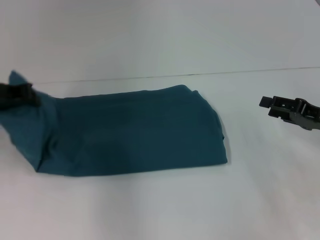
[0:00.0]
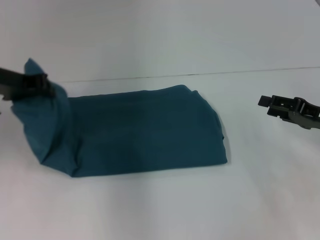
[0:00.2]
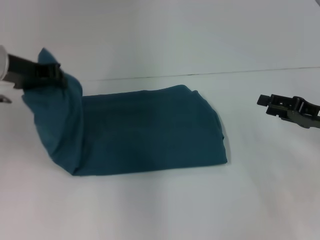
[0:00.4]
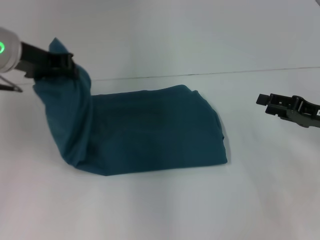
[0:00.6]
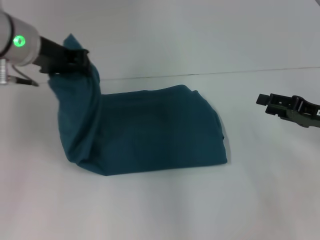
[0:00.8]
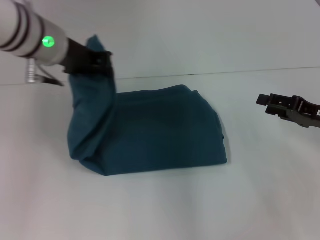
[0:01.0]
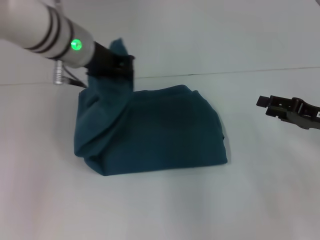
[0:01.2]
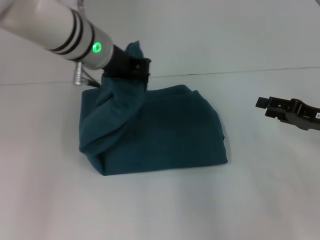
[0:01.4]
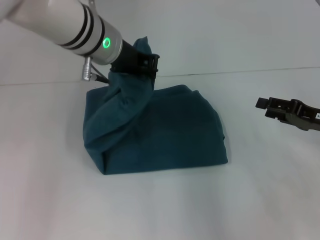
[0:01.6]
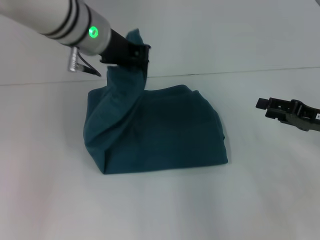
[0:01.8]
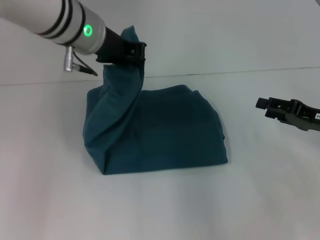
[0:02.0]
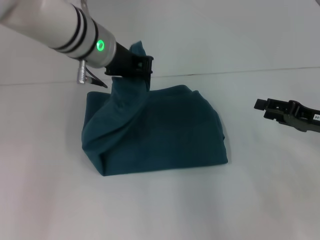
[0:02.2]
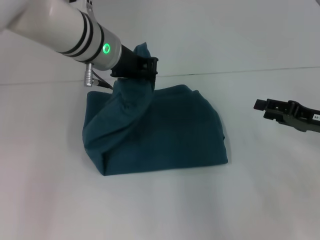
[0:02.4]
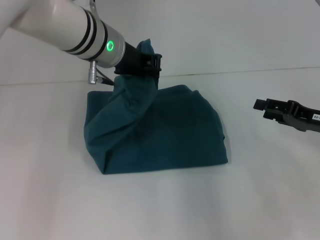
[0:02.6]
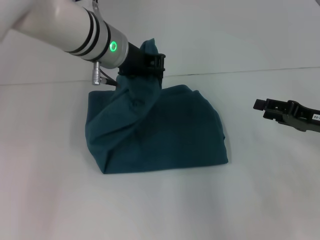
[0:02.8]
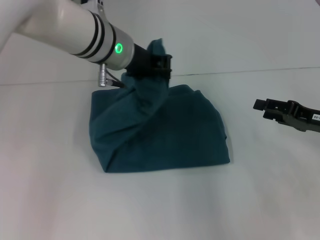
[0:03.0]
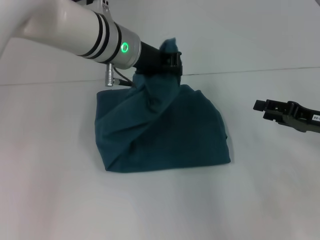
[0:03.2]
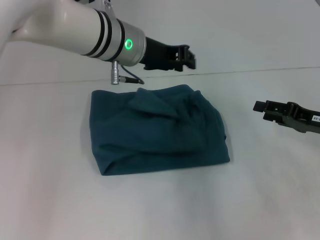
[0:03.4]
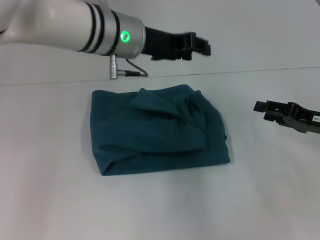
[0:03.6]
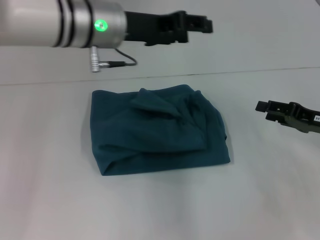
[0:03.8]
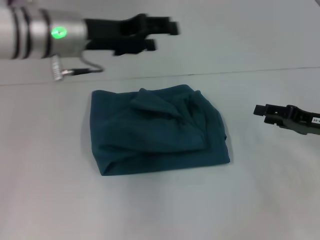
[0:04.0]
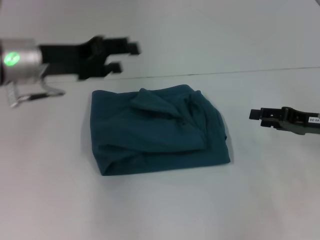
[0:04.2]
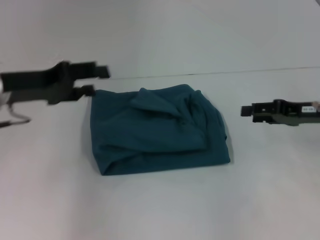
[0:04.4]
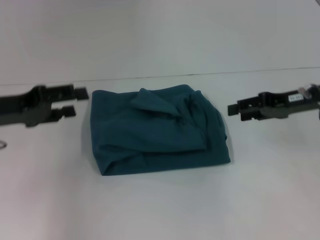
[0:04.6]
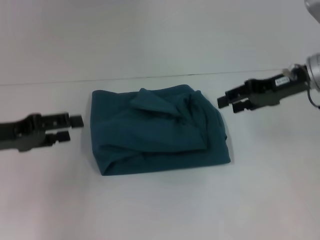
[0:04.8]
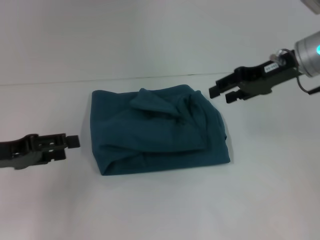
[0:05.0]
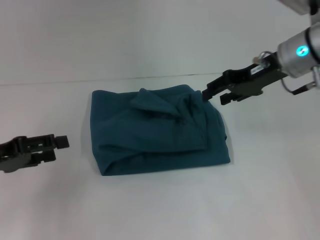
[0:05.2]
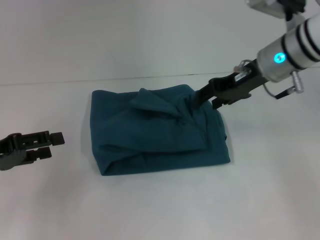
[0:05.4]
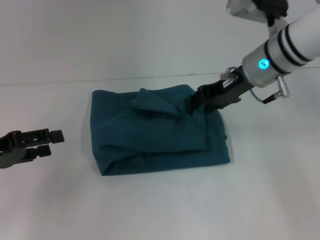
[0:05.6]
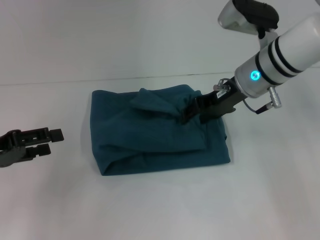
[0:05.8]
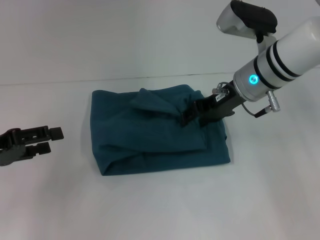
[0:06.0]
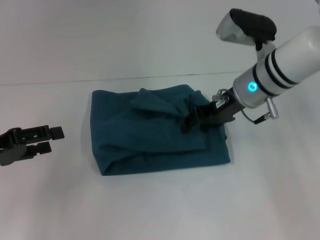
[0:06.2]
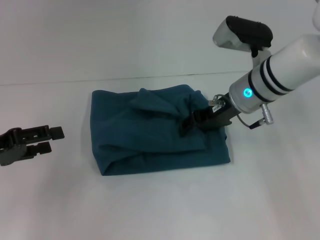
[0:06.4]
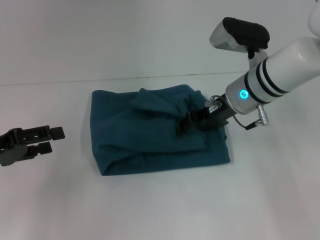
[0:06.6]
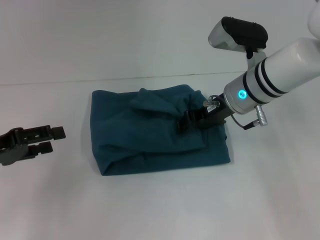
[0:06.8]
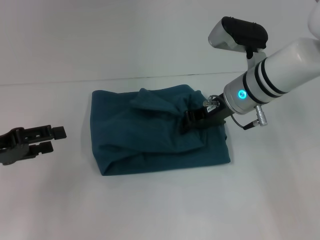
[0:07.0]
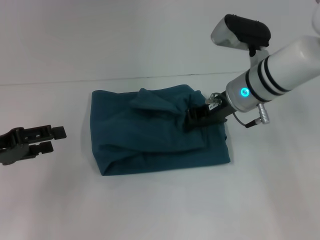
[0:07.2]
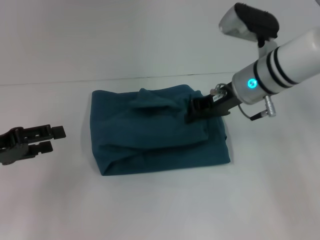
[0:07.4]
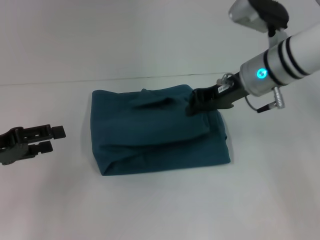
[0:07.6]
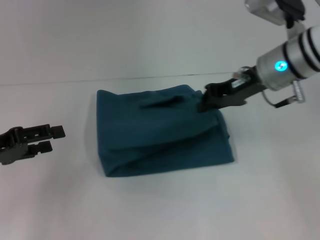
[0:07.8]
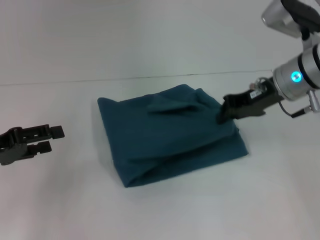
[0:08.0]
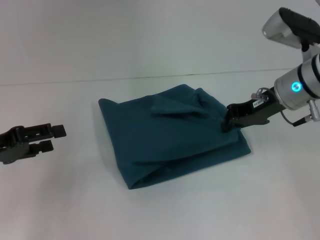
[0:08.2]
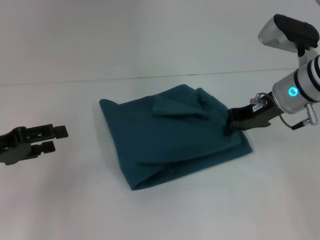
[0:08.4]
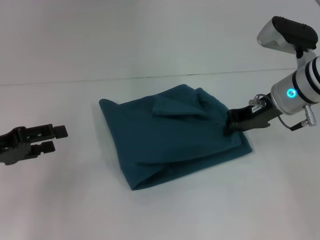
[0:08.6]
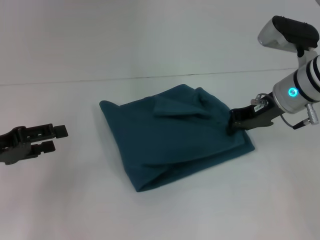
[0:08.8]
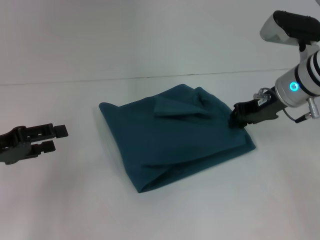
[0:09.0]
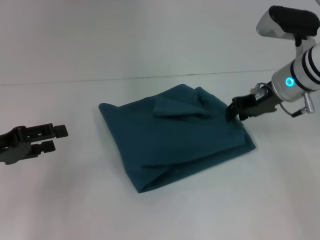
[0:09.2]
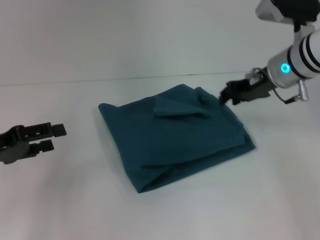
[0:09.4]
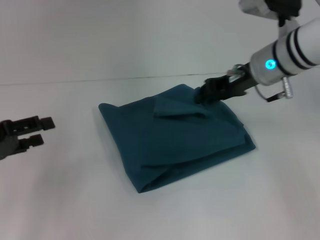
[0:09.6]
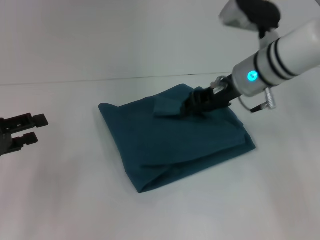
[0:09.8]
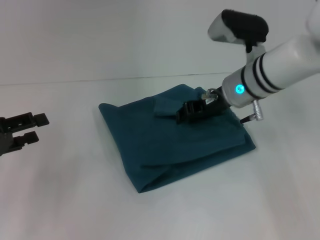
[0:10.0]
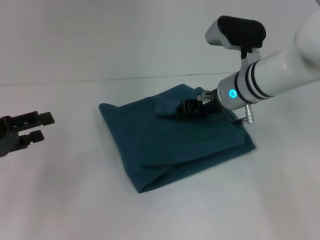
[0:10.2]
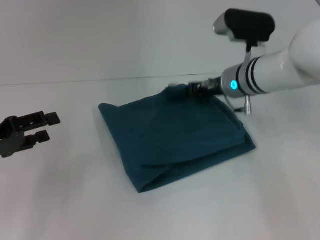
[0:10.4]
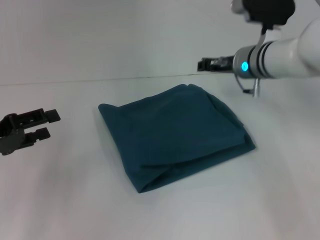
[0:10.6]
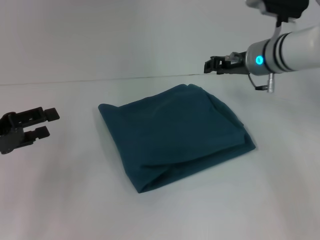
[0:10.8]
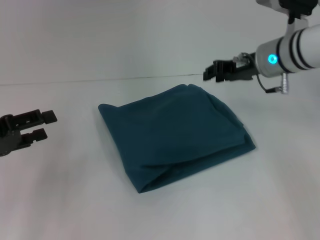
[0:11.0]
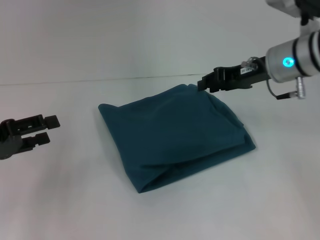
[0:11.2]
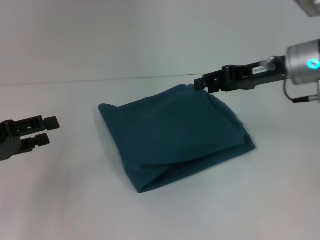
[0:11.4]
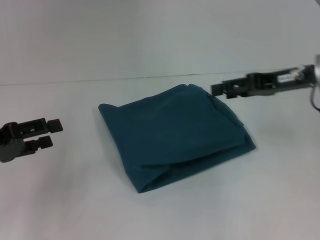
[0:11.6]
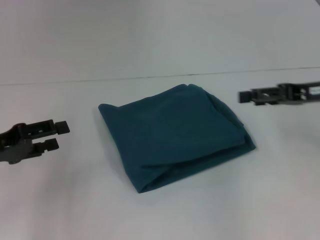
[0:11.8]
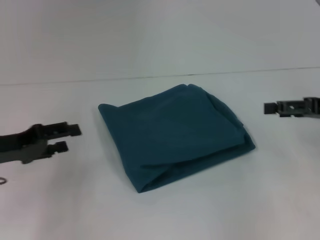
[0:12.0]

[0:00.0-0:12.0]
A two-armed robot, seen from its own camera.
Step, 0.0 to 3.8 s: Fold the clothes to the left.
0.0 to 1.6 s: The left gripper travels to the right by approximately 20 cm.
1.6 to 3.0 s: The grippers stay close to where they were, moving slightly.
3.0 to 4.4 s: The left gripper heads to the left, covering approximately 20 cm, and opens.
4.4 to 6.0 s: The left gripper shifts roughly 10 cm to the left, backward and downward. The right gripper shifts about 15 cm to the left and forward.
6.0 to 7.6 s: The right gripper closes.
7.6 to 9.0 s: The right gripper is displaced to the right by approximately 5 cm.
9.0 to 10.4 s: The right gripper goes roughly 5 cm to the left.
10.4 to 12.0 s: The right gripper moves to the right and backward, approximately 20 cm, and opens up.

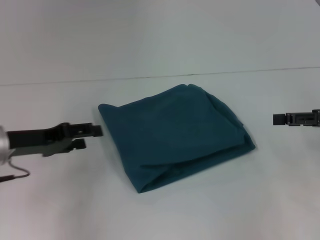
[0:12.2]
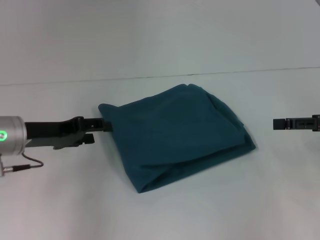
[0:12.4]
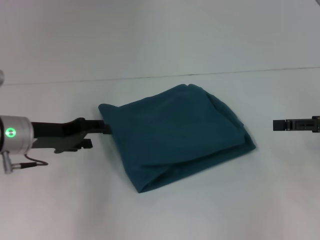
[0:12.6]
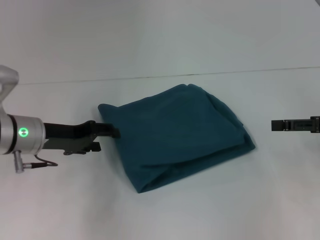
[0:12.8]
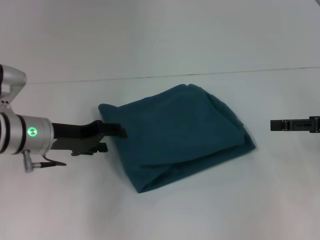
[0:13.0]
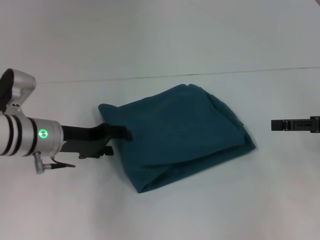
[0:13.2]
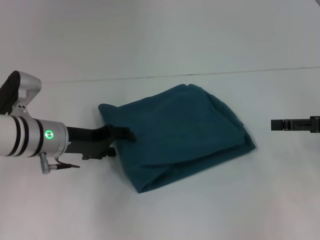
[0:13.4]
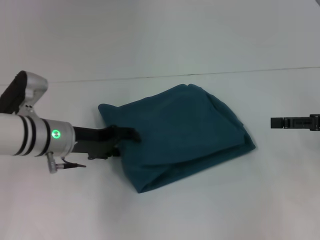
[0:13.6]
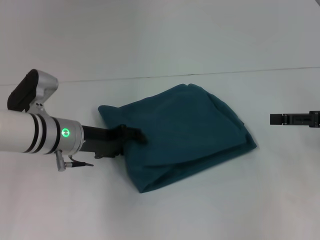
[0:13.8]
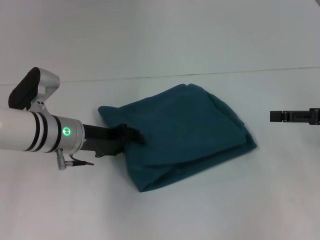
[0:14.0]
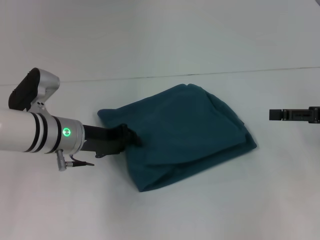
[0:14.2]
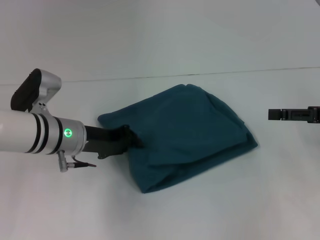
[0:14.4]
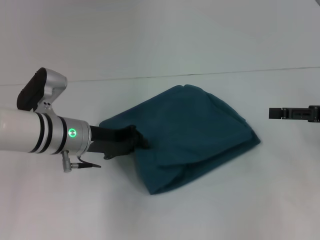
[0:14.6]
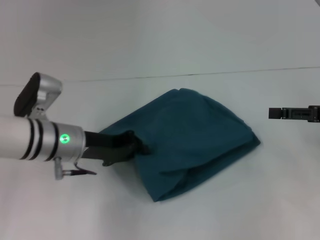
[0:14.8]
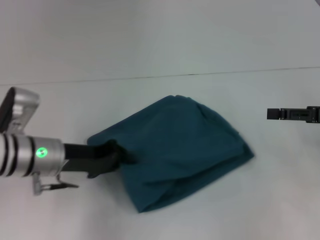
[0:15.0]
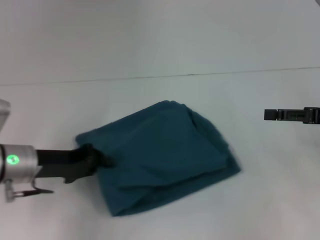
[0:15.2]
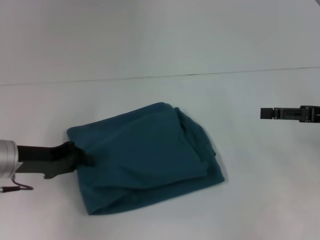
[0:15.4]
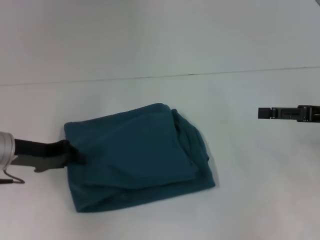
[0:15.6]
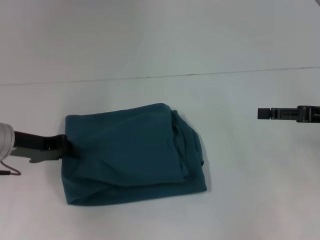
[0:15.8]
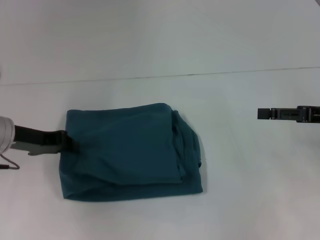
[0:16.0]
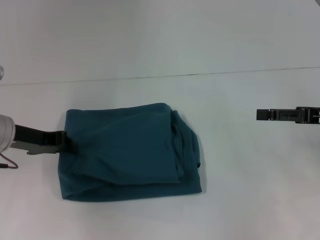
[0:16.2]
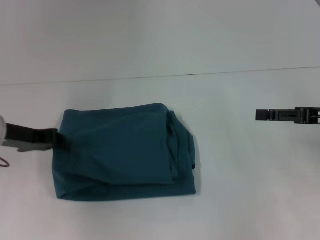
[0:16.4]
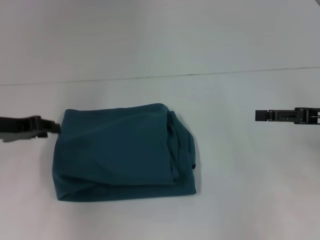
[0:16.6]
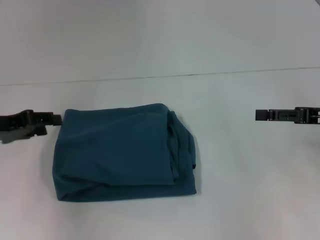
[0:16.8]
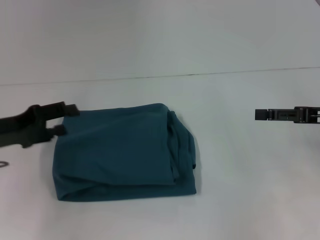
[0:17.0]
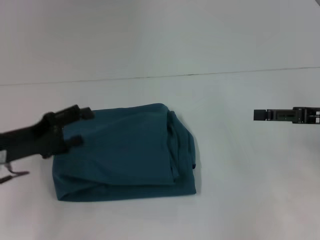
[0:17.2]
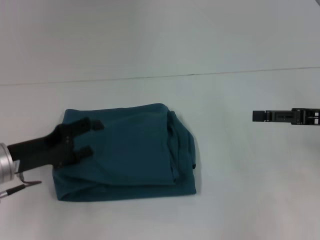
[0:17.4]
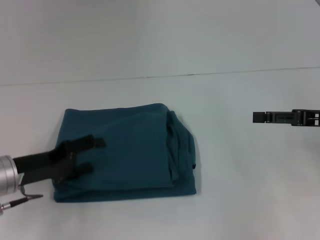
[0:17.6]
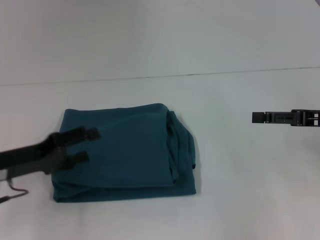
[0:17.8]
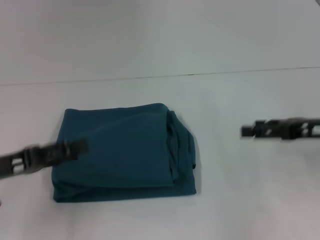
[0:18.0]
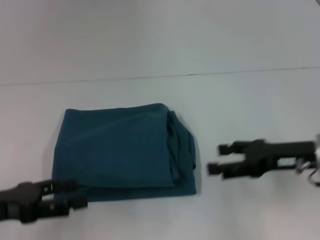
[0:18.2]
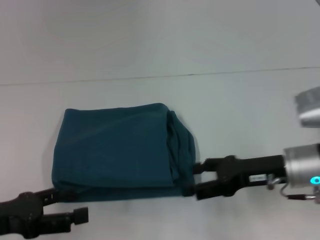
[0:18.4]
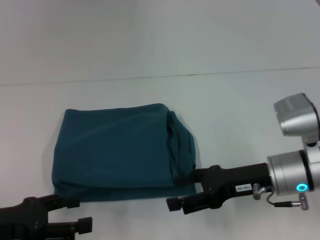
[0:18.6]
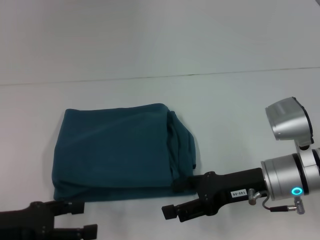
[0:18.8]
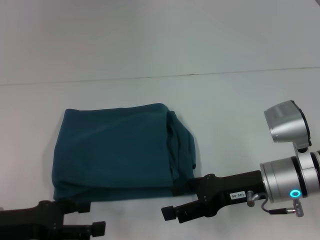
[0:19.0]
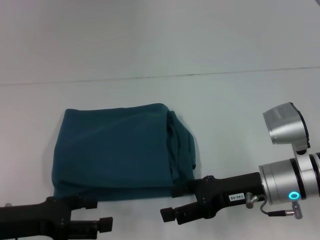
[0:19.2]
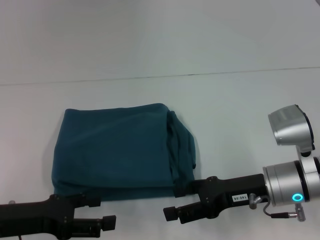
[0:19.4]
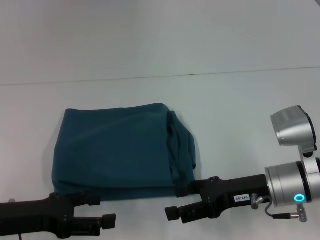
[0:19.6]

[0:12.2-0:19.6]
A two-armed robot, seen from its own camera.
12.2 to 13.6 s: The left gripper travels to the right by approximately 10 cm.
13.6 to 15.2 s: The left gripper ends up roughly 5 cm from where it was, and closes its fingers.
15.2 to 16.6 s: The left gripper moves to the left and upward, approximately 10 cm.
16.6 to 18.2 s: The left gripper heads backward, covering about 10 cm, and opens its fingers. The right gripper travels to the left by approximately 5 cm.
18.2 to 19.6 s: The right gripper goes approximately 5 cm to the left.

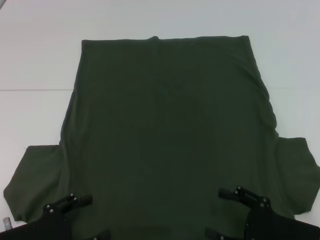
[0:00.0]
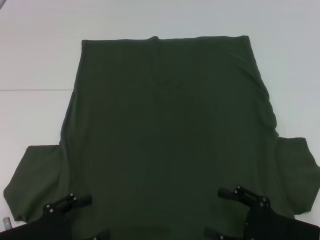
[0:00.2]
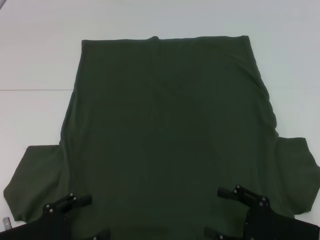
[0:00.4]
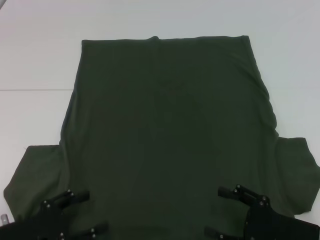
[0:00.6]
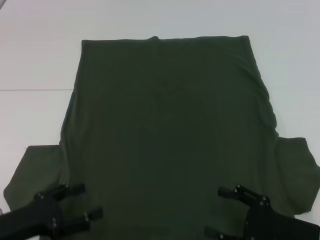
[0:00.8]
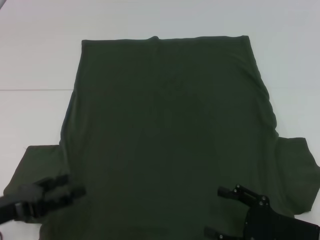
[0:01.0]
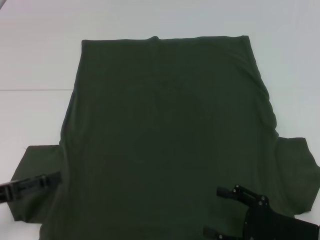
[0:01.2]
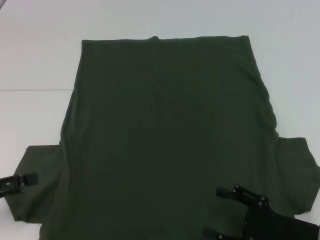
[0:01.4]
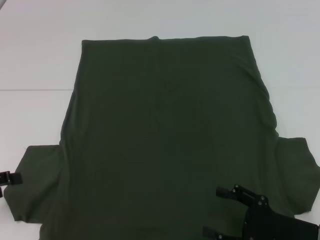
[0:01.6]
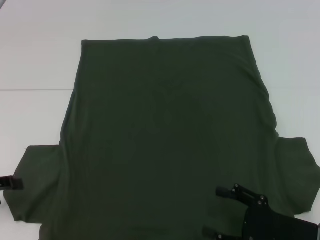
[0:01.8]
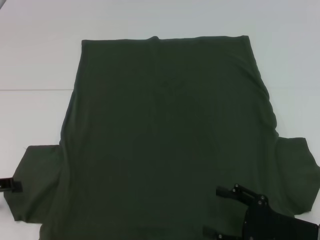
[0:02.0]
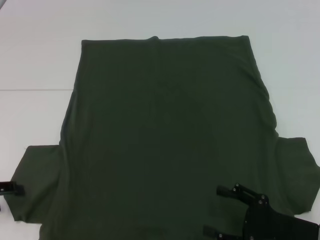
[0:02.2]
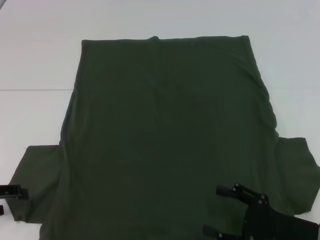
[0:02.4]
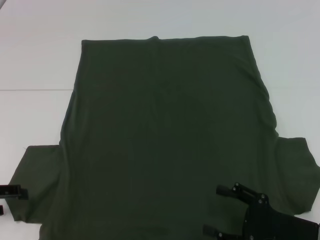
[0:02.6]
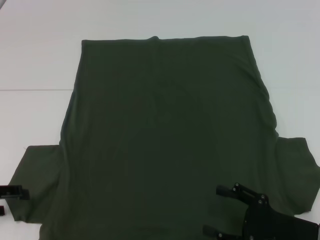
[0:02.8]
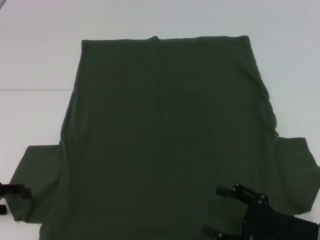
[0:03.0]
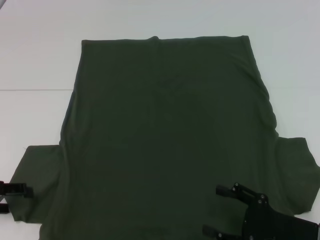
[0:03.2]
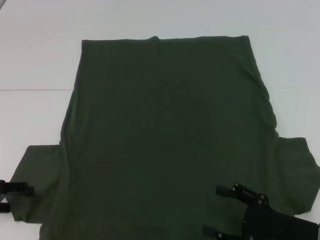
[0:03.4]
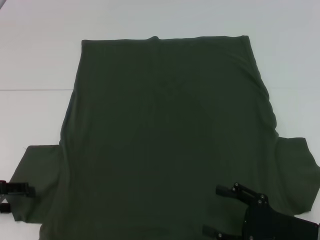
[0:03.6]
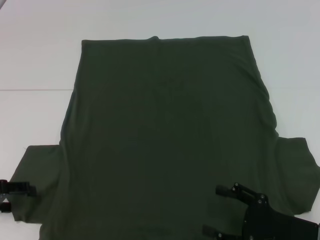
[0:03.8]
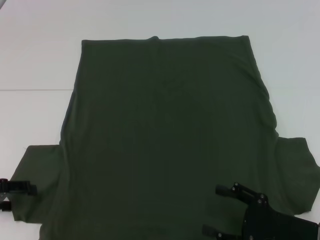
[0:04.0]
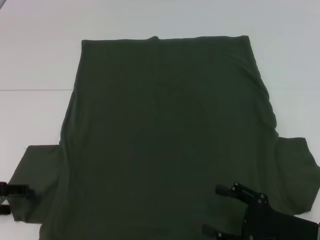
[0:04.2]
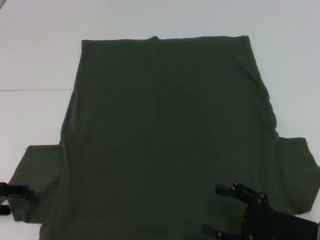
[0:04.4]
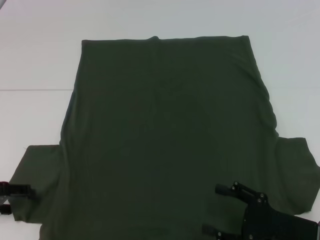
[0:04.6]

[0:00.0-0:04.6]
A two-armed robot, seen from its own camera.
0.0 to 1.6 s: The left gripper goes some 15 cm to the left and upward.
1.6 to 3.0 s: The grippers make only small movements.
3.0 to 4.6 s: Both grippers stay put.
